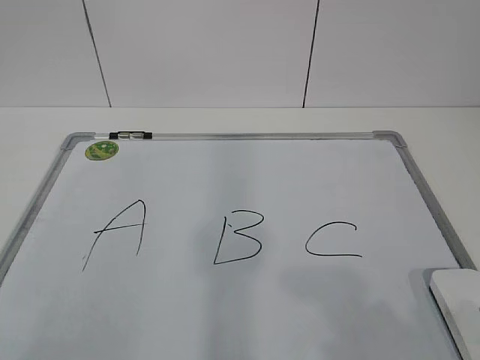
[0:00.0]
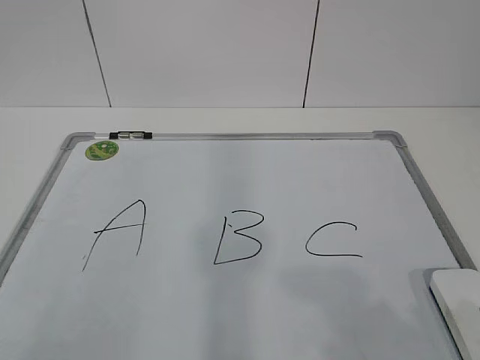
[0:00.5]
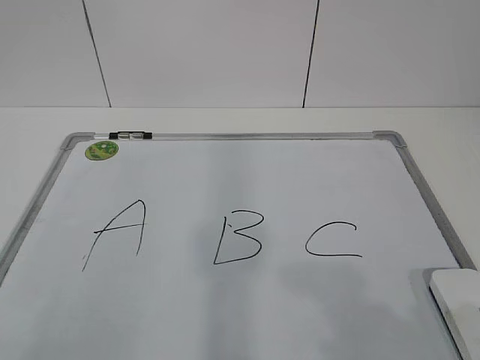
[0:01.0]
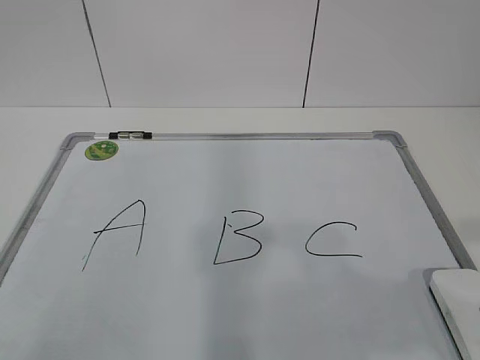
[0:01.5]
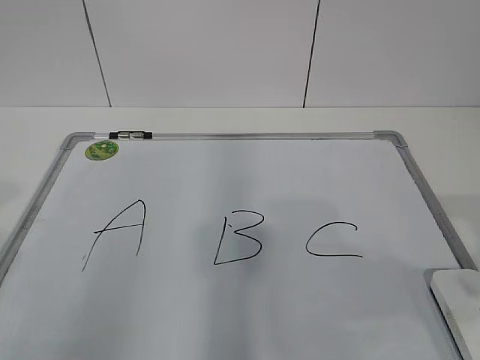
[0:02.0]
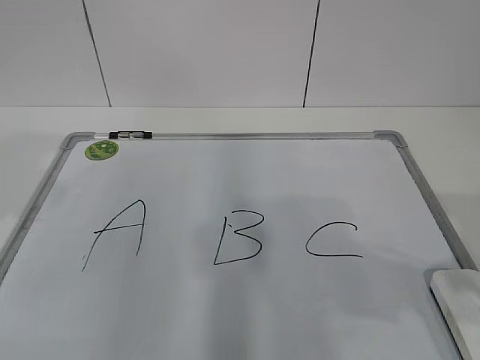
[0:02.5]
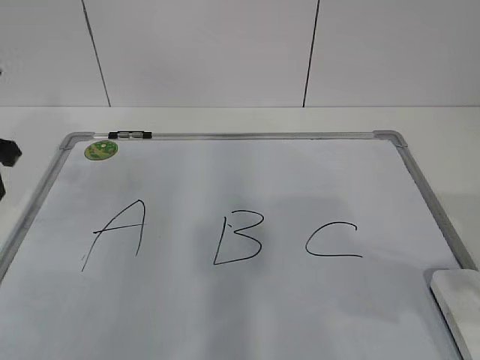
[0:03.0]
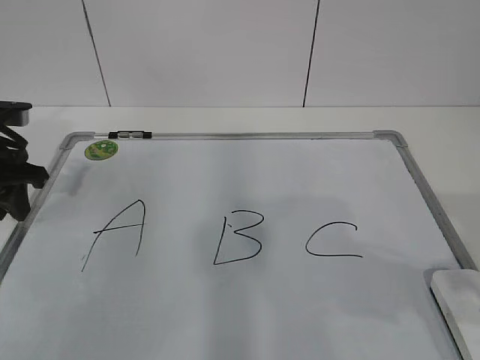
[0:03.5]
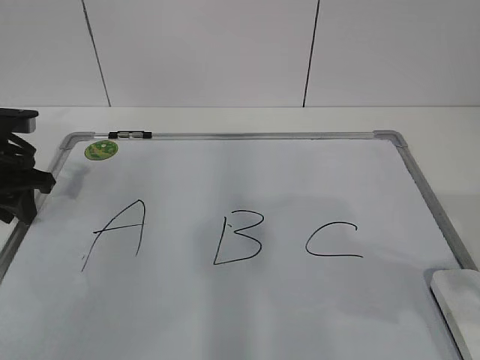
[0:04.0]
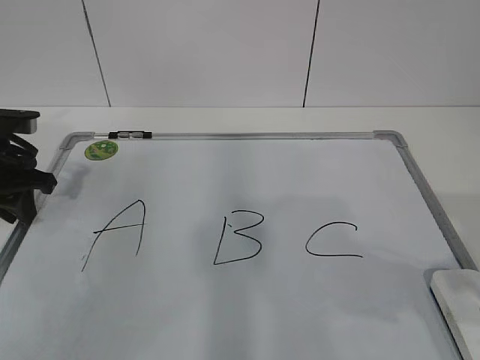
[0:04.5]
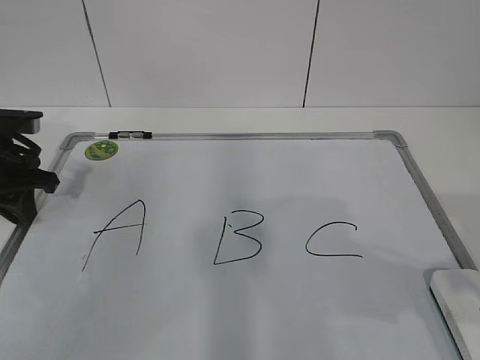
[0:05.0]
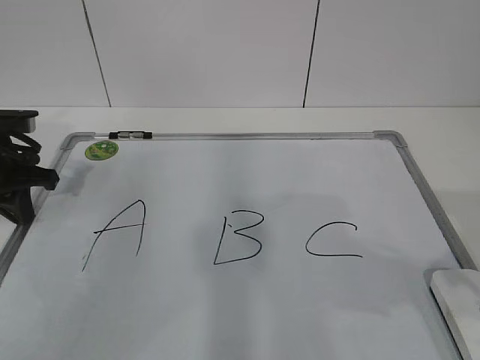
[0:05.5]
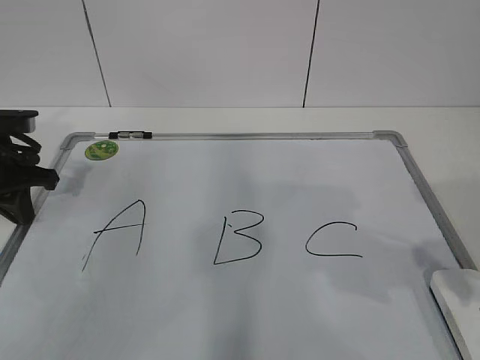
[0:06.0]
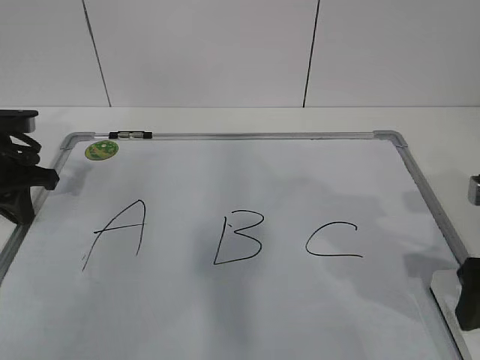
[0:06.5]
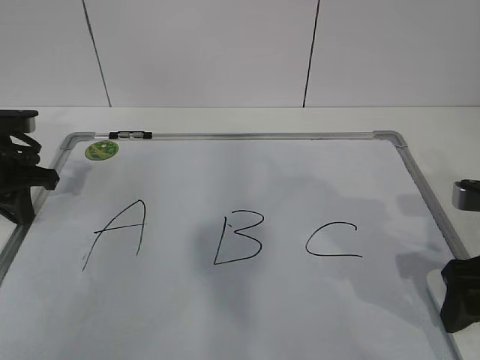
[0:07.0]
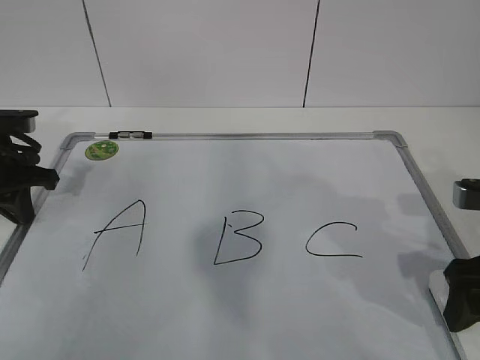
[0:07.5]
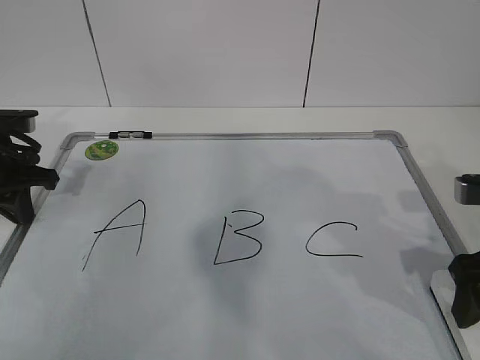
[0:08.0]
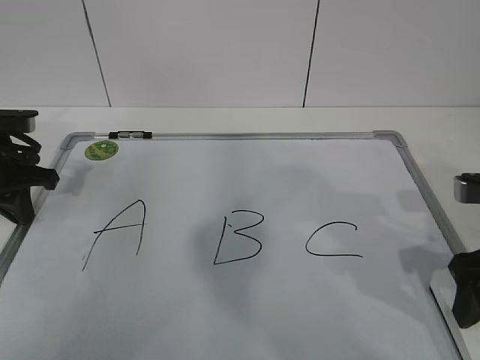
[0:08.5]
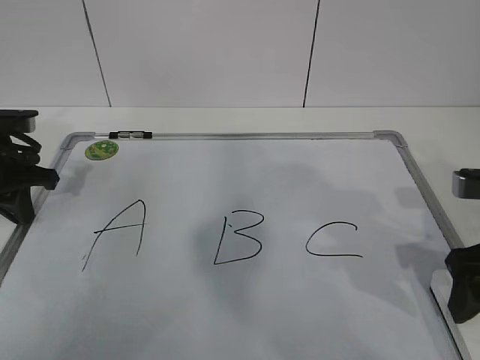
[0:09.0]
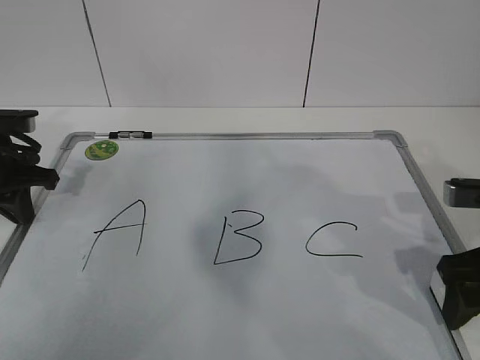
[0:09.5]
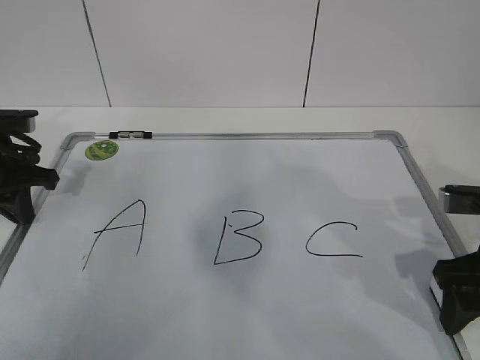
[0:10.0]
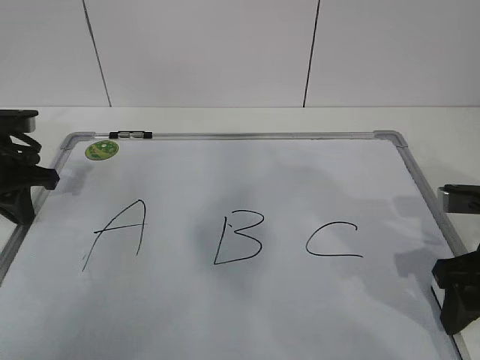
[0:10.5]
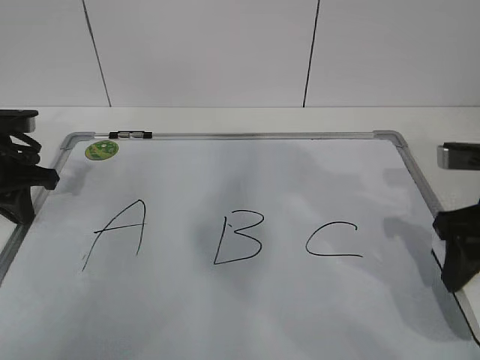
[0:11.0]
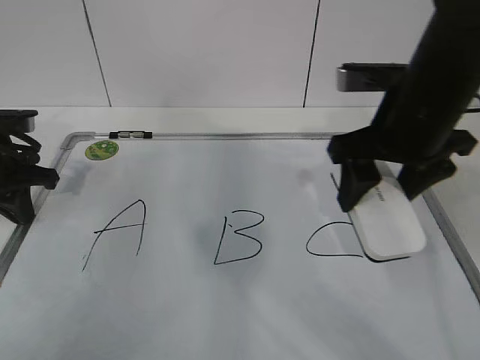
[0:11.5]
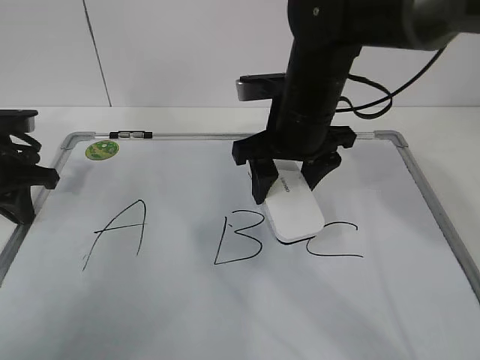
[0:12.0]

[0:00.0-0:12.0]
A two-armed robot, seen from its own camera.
Task of the whole recording: pick up the eraser on the blackboard and erase the letter "B".
Step, 0:00.0 to 0:04.0: Hold the drawing board steady with your left hand.
Step, 0:04.5 to 0:08.5: Grab the eraser with your right hand.
0:02.0 to 0:04.0: The left gripper goes some 30 cm forward and downward.
0:04.0 to 0:06.0: The left gripper closes.
0:06.0 to 0:08.0: The right gripper is displaced downward and forward by some 10 cm.
0:08.0 to 0:10.0: There are only small adjustments of the grippers.
0:10.0 to 0:12.0: The right gripper heads to the left and forward, covering approximately 20 cm, and closes.

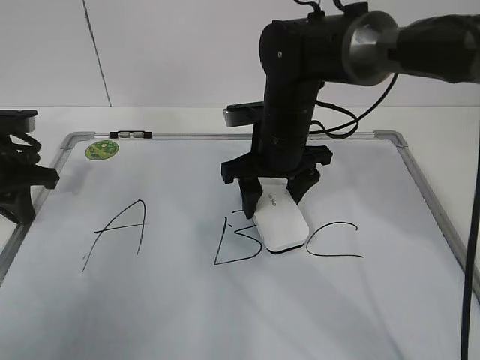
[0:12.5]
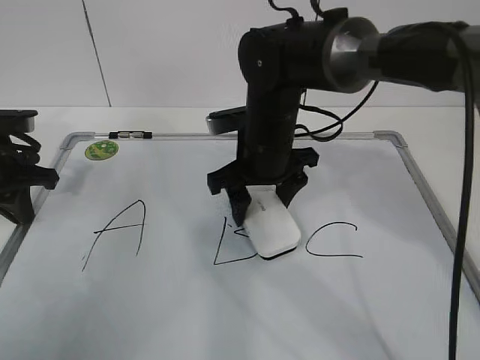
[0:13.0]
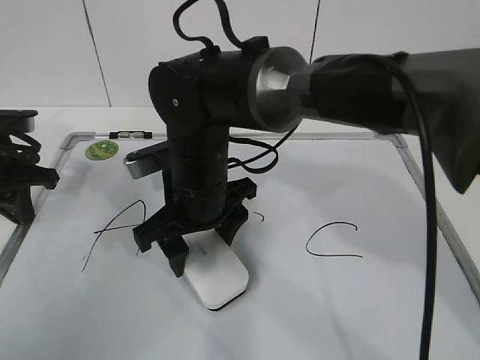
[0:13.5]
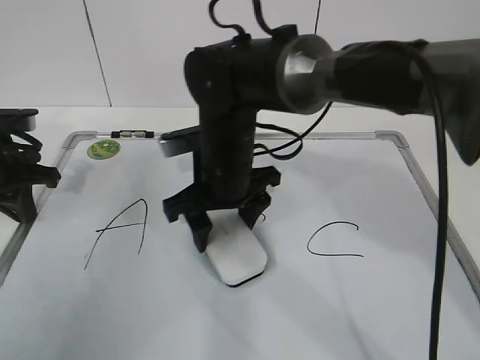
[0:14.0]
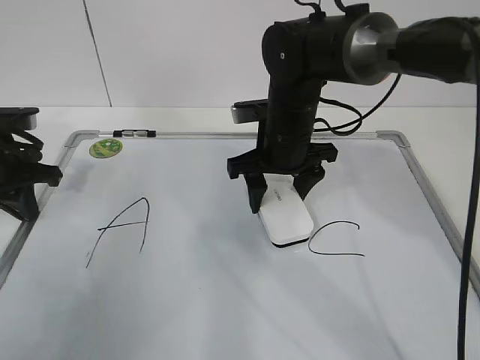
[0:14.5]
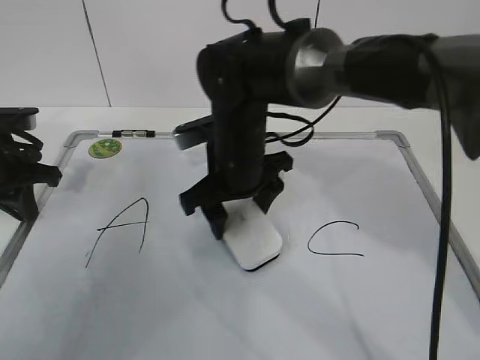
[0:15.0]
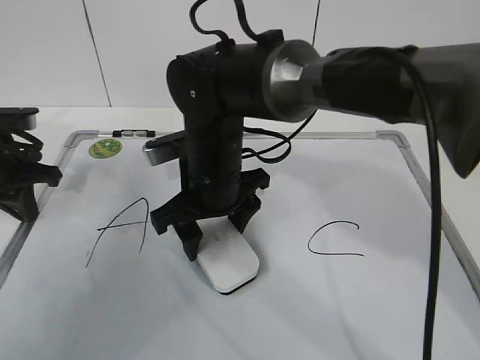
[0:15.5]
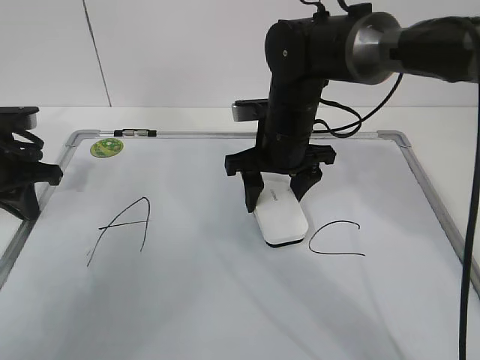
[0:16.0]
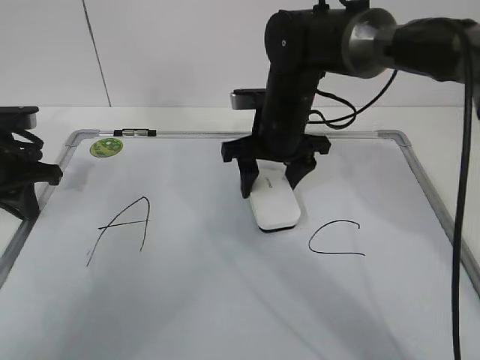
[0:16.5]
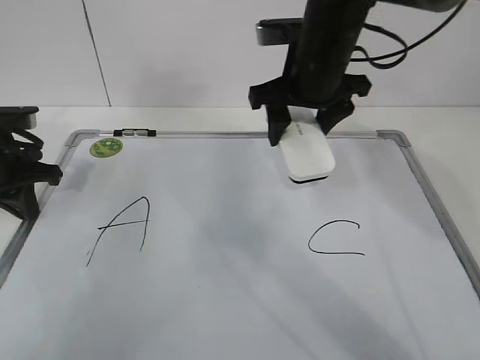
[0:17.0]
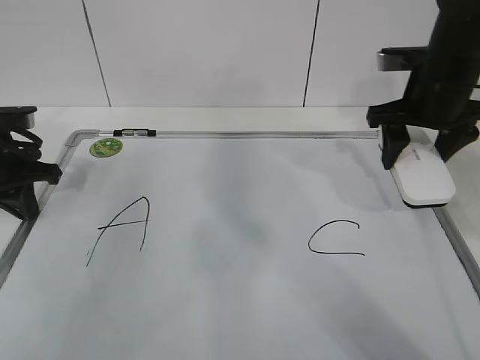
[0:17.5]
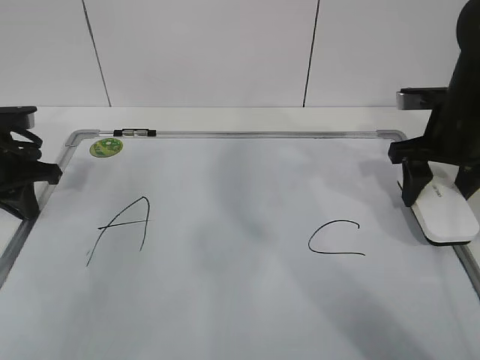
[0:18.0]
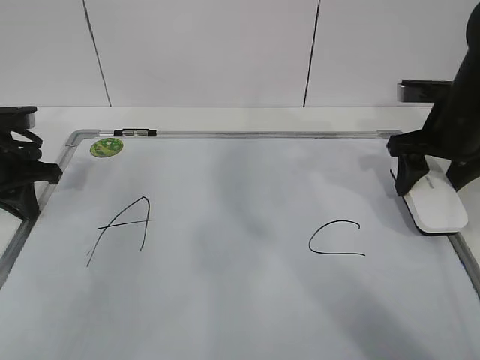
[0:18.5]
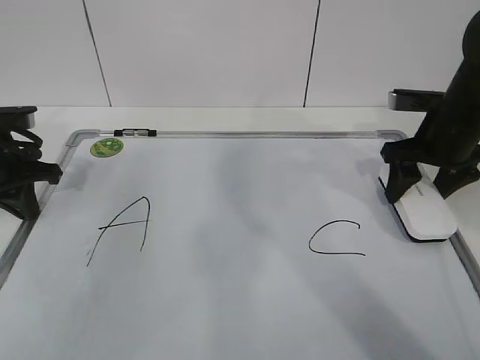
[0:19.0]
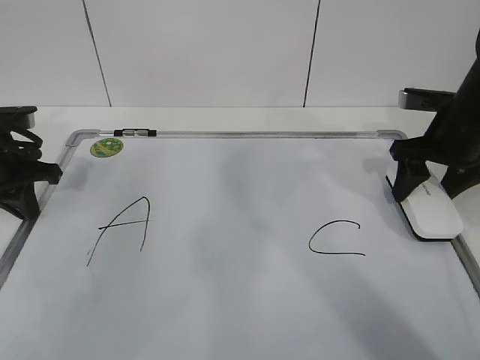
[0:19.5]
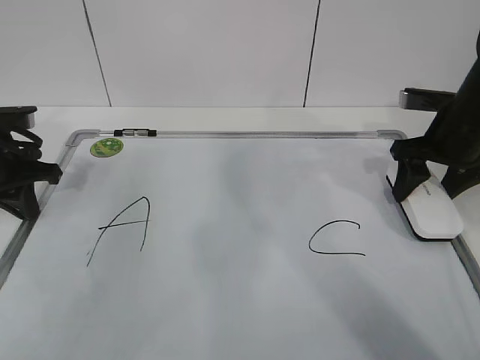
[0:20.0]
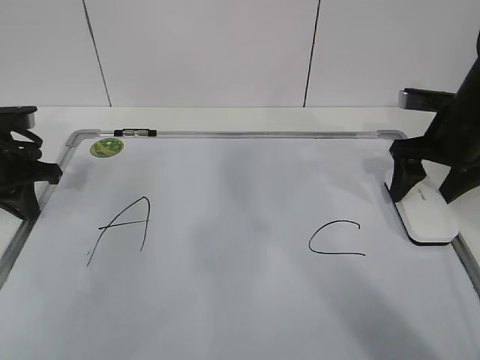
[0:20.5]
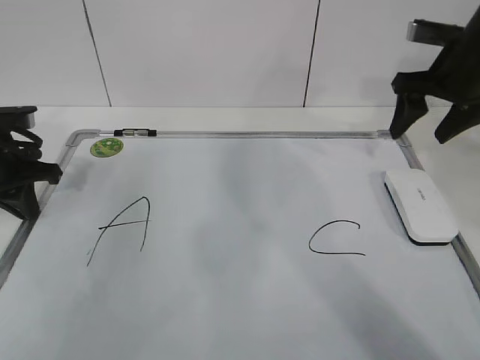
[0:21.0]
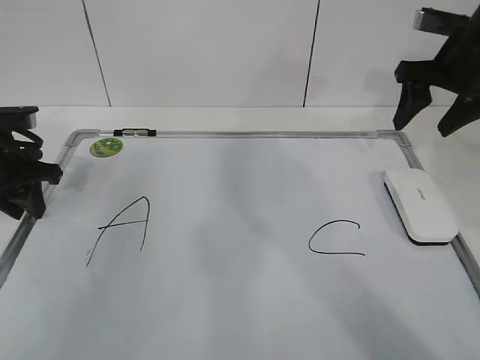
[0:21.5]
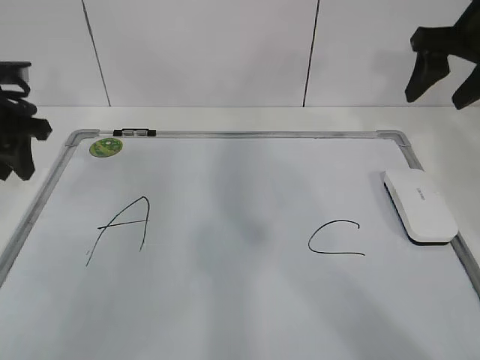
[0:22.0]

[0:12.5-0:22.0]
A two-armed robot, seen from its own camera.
Task of the whole recording: pick up the eraser on the blackboard and erase the letter "B".
Step, 0:14.0 to 0:16.5: Put down the eraser with your right hand.
0:12.5 to 0:14.5: The right gripper travels to the left and back again, some 10 cm each way.
0:14.5 to 0:16.5: The right gripper moves about 10 cm to the left and comes back.
0:16.5 to 0:18.0: The right gripper is displaced to the right by approximately 20 cm.
0:18.0 to 0:20.0: The grippers move only a little.
0:20.0 to 0:22.0: The right gripper is displaced upward by approximately 10 cm, and opens and closes again. Meanwhile the left gripper is displaced upward by about 5 cm, and opens its fingers.

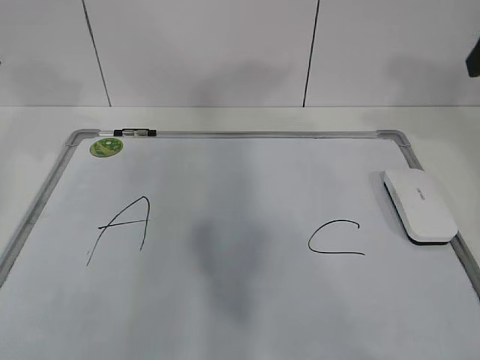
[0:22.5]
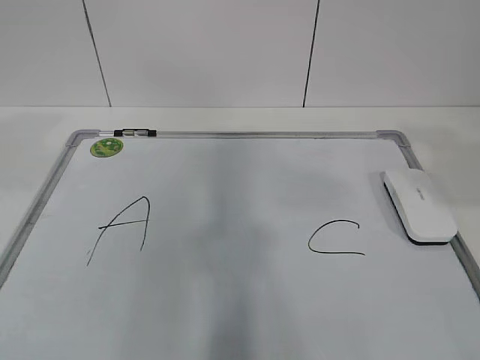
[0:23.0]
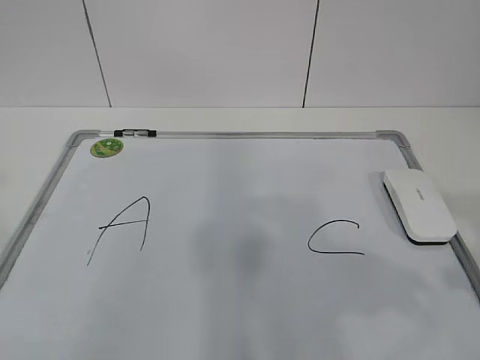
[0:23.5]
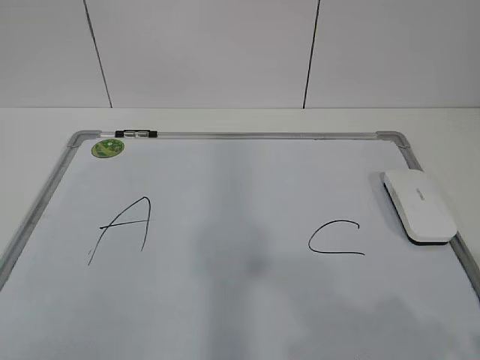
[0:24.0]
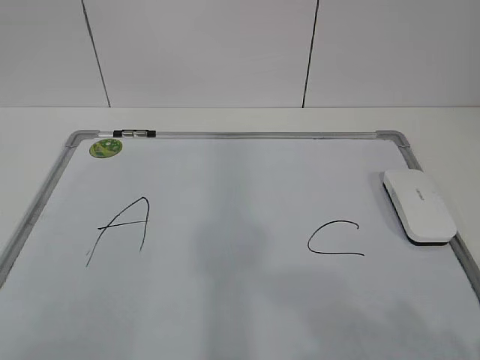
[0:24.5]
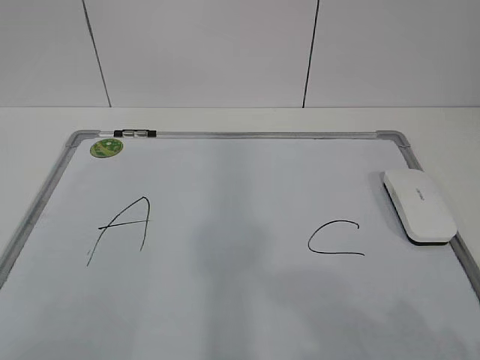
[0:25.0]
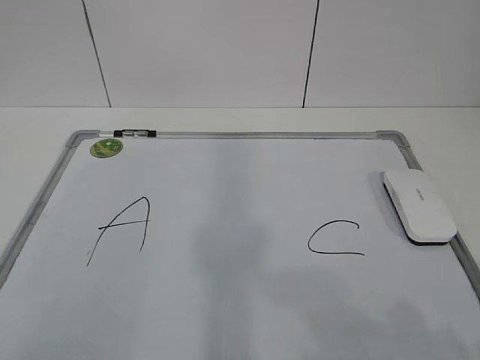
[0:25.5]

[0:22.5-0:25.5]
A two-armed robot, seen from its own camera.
Task of the whole recording: pick up the eraser on the blackboard and erase the letter "B".
0:22.5 to 0:24.0: The two grippers go about 35 cm backward. The right gripper closes its fingers.

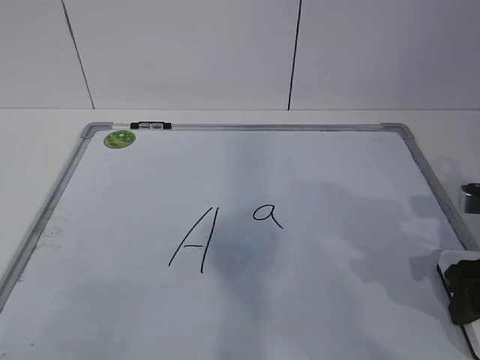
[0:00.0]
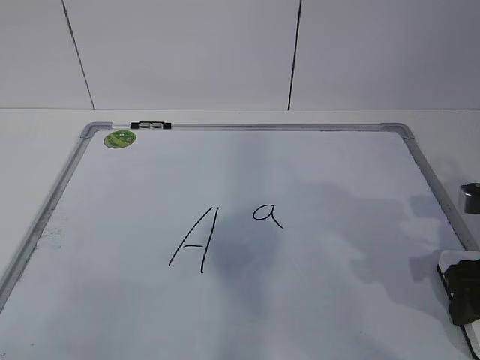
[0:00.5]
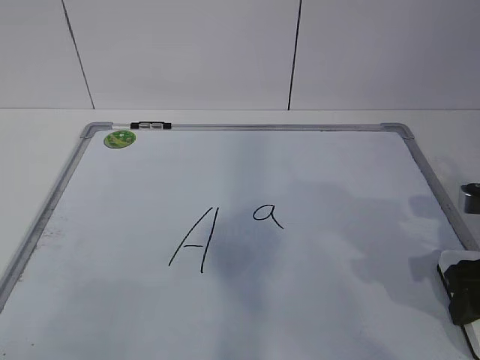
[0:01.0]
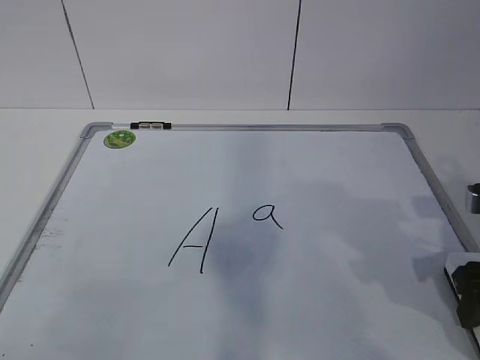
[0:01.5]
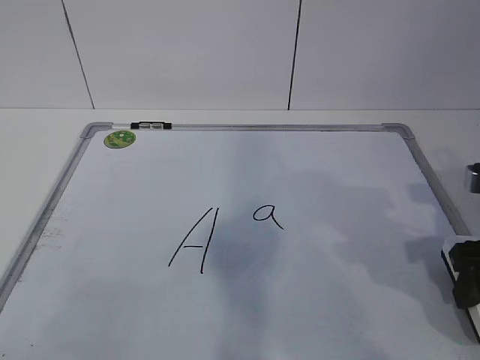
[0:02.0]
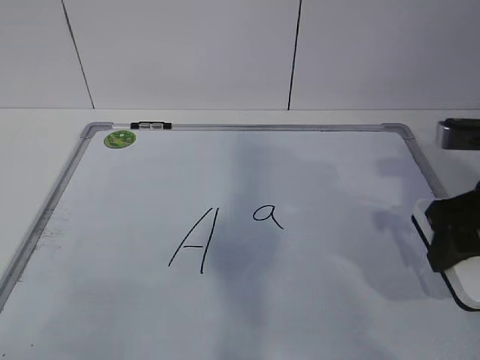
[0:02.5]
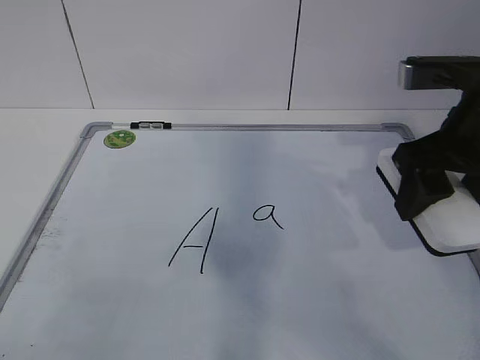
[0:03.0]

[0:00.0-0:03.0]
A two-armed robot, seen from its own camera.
Task of the whole recording: pick up the eraser on the blackboard and erase the letter "a".
0:00.0 to 0:01.5: Neither gripper changes place.
0:01.5 to 0:03.0: The right gripper heads upward, to the left and forward, covering roughly 15 cm.
